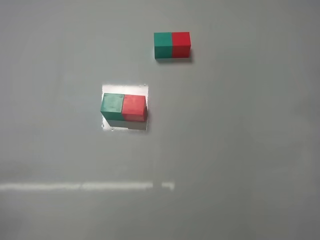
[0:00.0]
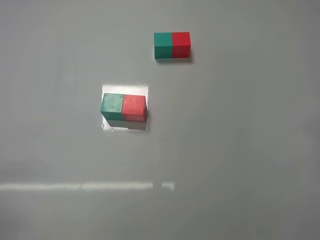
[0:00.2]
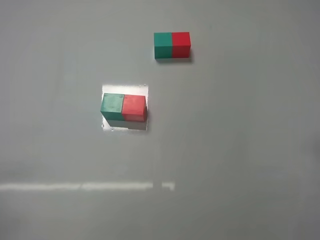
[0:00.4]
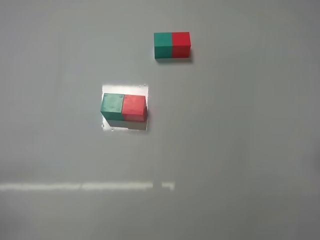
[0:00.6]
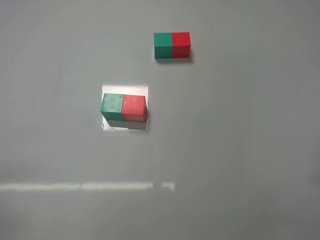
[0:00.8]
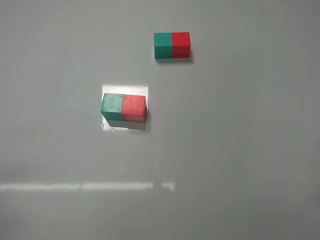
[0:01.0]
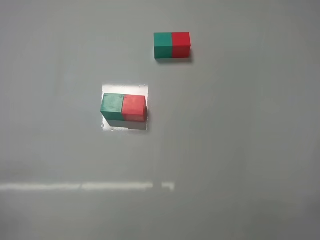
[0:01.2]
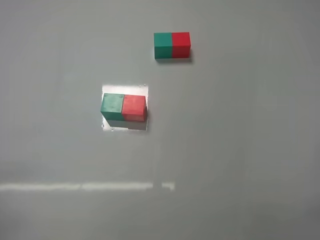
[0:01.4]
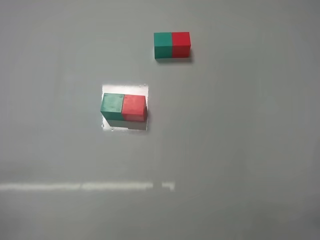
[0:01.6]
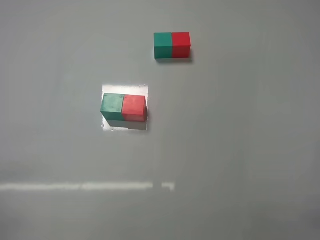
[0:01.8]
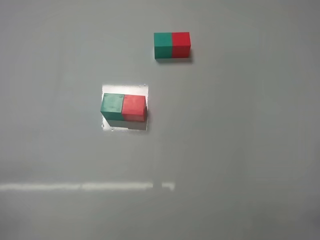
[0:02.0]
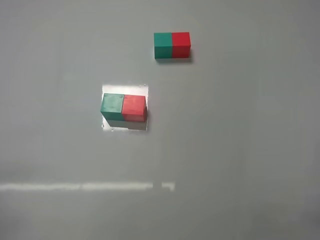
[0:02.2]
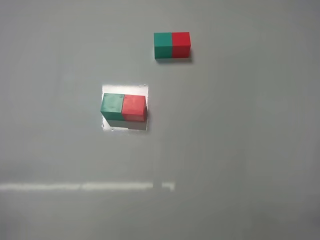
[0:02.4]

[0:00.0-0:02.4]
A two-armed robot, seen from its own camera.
Task of the whole recording: According to the building block template in front, assemble the scattered blocks together.
0:01.2 to 0:02.4: Neither gripper changes place.
